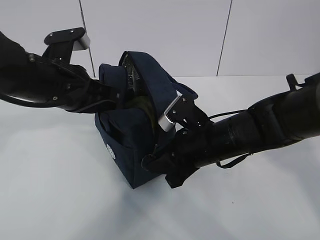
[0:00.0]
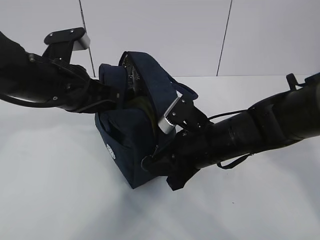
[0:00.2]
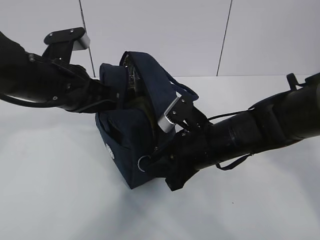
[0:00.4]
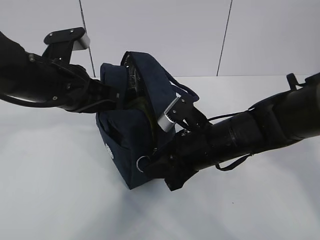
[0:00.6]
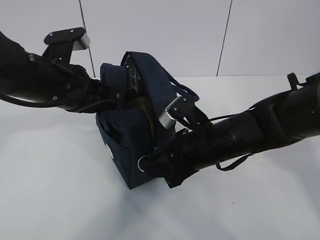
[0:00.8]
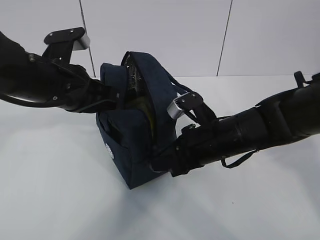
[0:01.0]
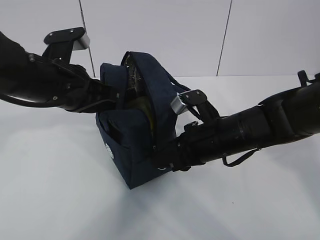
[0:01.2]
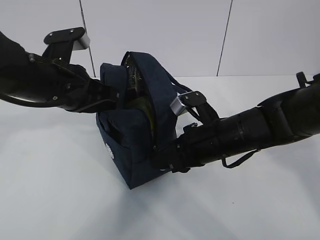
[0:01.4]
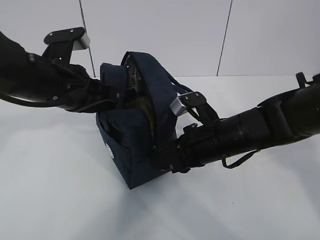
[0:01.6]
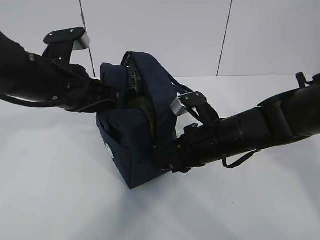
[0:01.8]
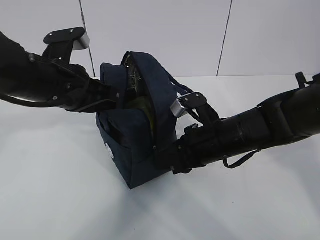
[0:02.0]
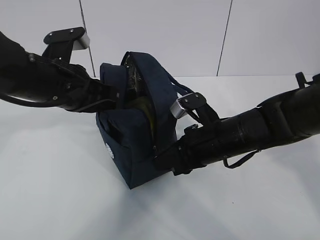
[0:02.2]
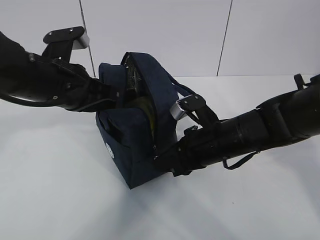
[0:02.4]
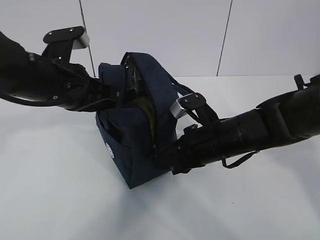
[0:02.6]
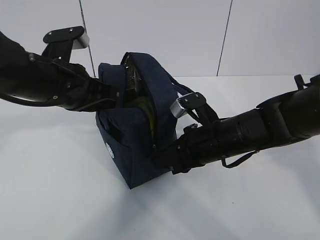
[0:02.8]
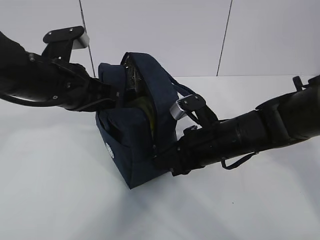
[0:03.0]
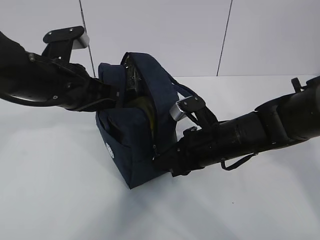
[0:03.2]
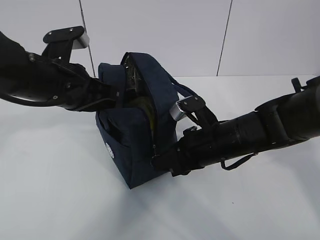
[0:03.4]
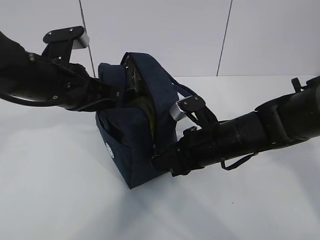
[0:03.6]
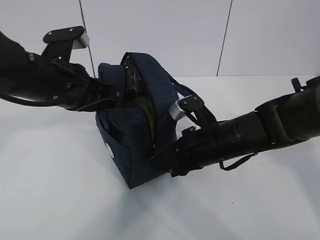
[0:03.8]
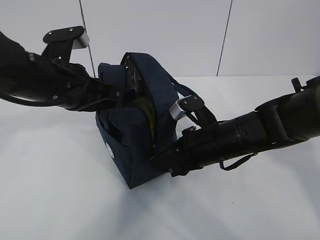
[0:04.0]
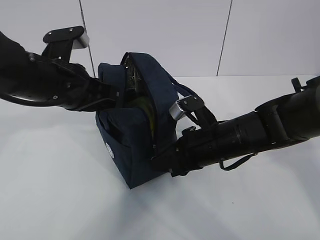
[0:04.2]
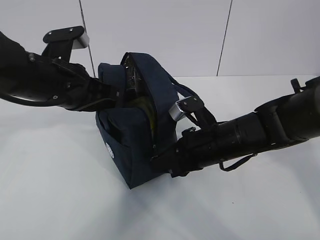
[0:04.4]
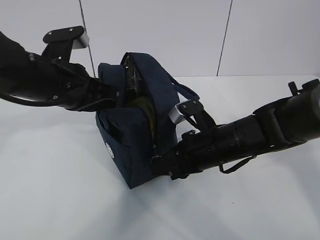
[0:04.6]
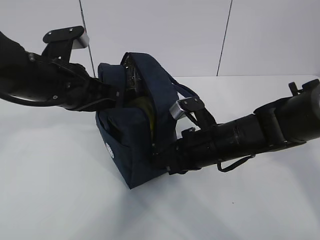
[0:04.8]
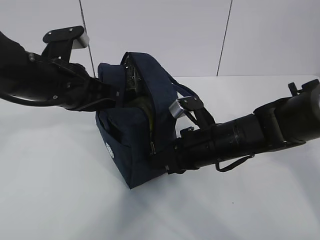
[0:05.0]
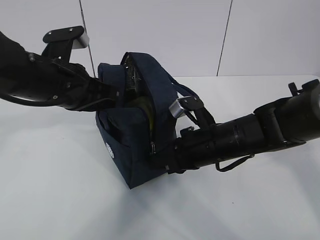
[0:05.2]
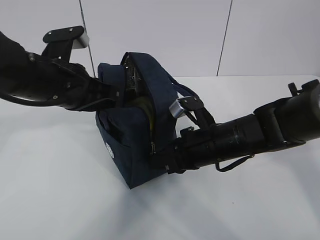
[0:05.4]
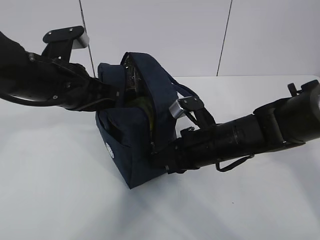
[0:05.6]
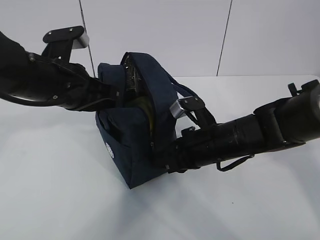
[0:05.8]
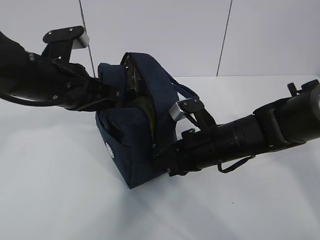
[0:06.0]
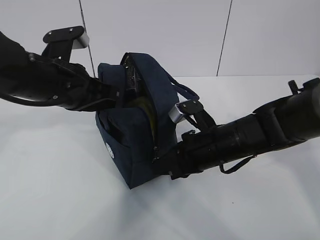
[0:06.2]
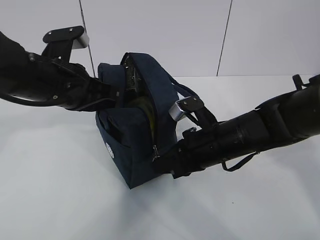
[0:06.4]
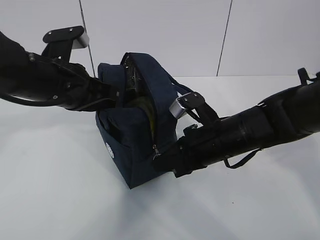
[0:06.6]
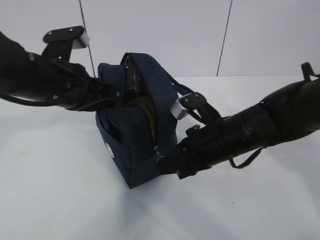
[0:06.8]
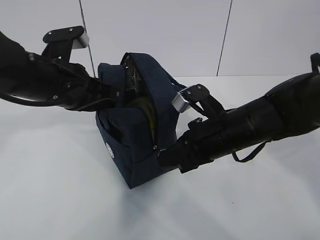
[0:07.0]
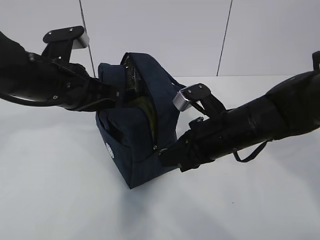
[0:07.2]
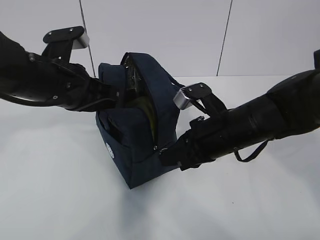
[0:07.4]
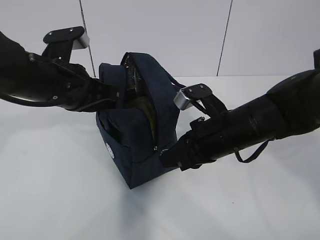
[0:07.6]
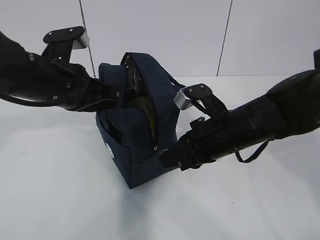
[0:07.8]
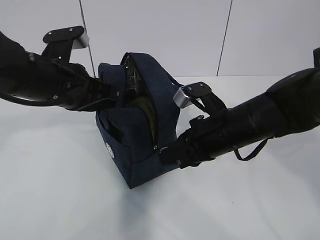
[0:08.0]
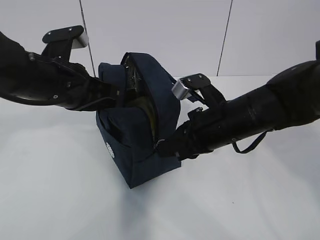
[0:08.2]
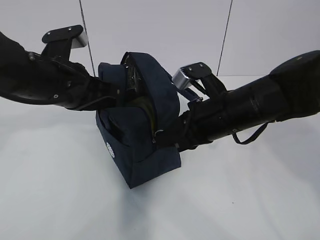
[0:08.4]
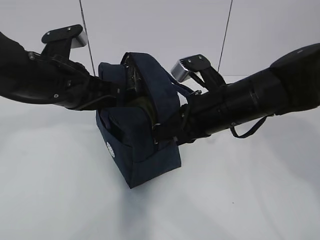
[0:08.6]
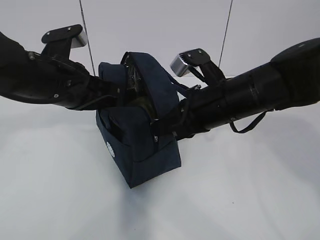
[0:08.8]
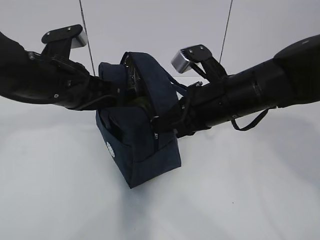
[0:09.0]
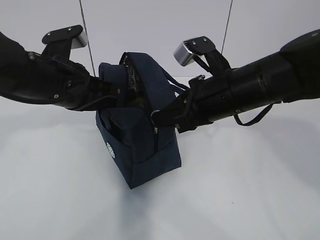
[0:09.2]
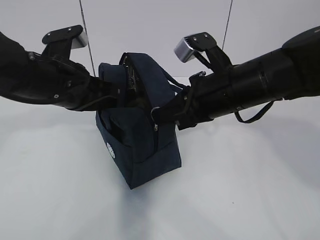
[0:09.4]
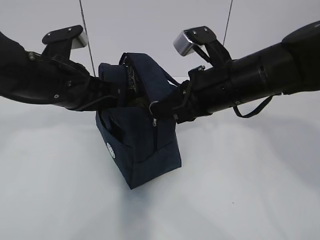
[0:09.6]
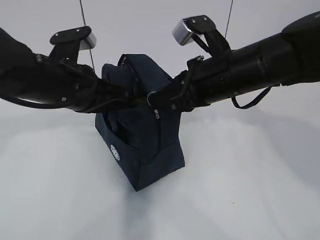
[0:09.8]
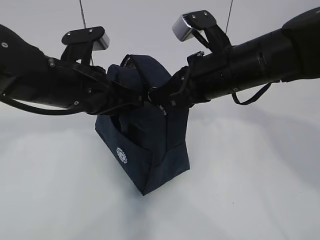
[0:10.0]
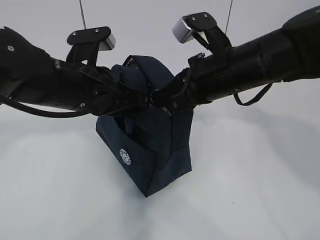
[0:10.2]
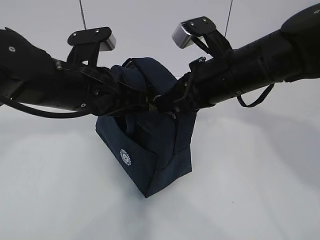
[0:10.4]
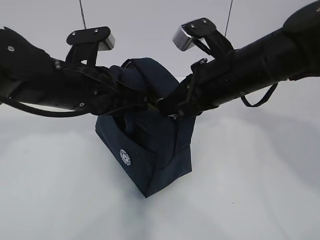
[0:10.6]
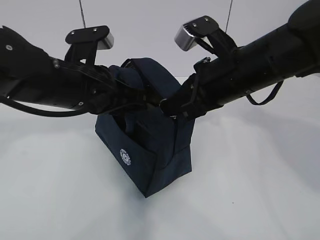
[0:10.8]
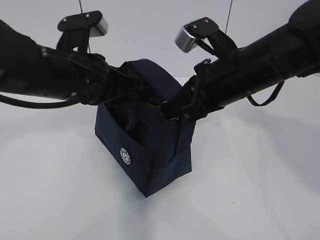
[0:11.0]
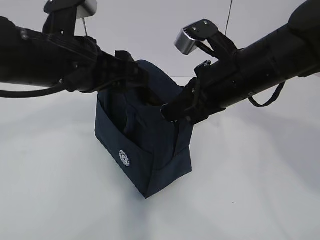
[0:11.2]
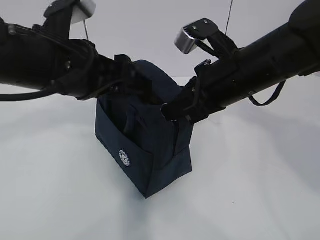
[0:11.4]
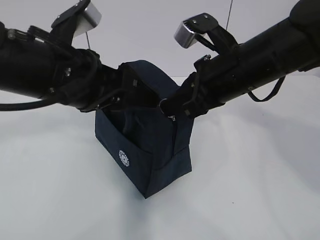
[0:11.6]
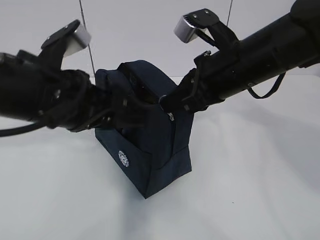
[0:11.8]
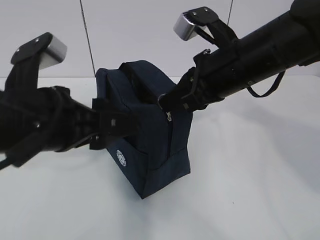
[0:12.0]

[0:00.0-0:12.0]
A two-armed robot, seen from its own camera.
Step, 0:03.0 to 0:09.2: Pull the zipper with your right hand.
0:00.0 to 0:01.6: There are only small adjustments of the grippers.
0:01.6 to 0:04.4: Neither gripper changes place.
0:04.4 to 0:06.0: Neither gripper changes place.
0:06.0 to 0:07.6: The grippers stay close to where they were, moving slightly.
0:07.6 to 0:09.0: The right gripper travels upward by approximately 5 cm.
0:09.0 to 0:10.4: The grippers move only a little.
0:10.4 to 0:12.0: The left gripper moves backward, about 10 cm, and opens its fingers.

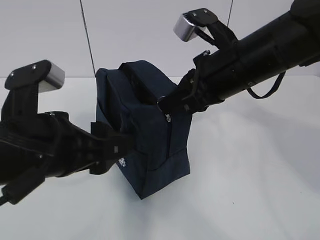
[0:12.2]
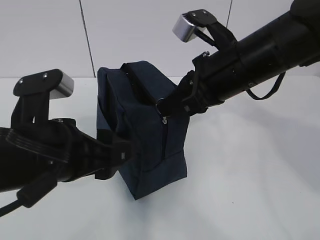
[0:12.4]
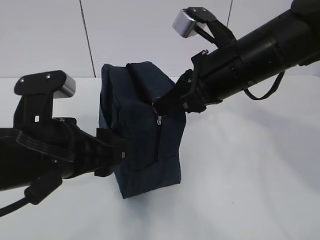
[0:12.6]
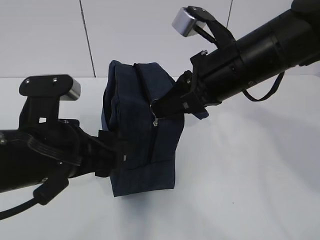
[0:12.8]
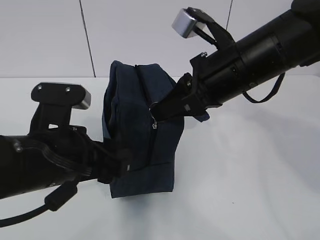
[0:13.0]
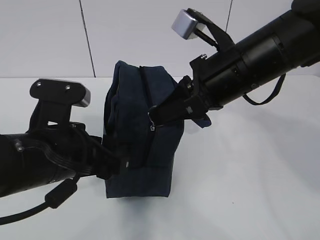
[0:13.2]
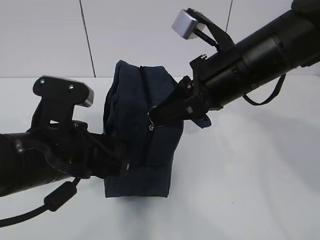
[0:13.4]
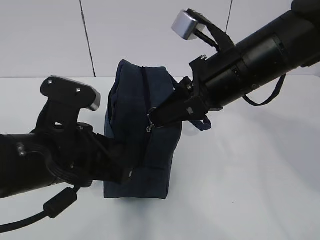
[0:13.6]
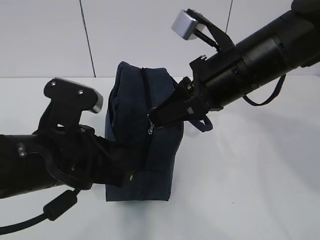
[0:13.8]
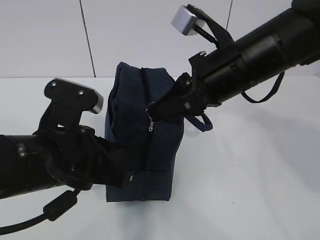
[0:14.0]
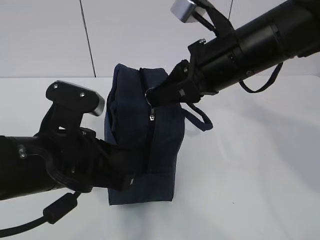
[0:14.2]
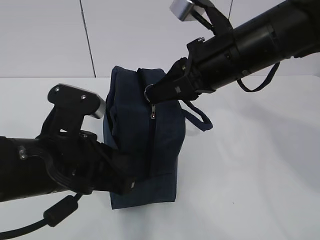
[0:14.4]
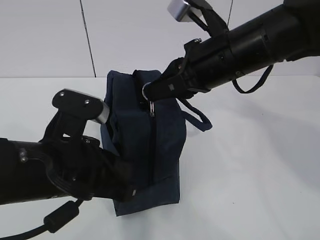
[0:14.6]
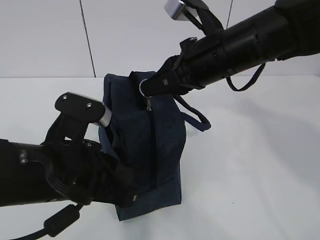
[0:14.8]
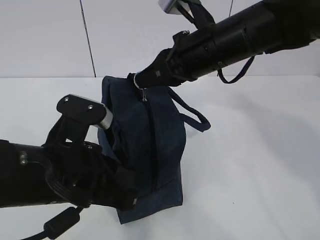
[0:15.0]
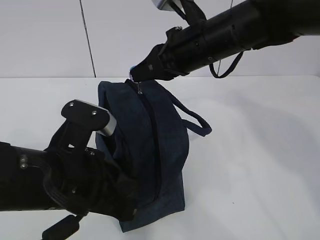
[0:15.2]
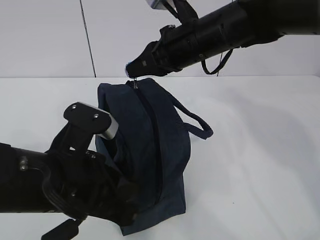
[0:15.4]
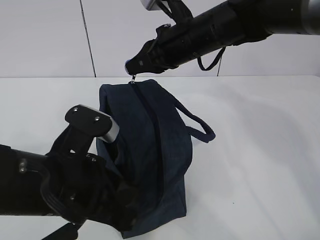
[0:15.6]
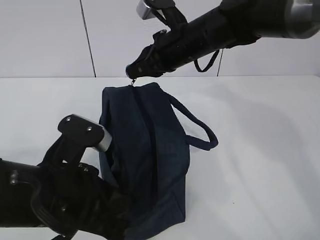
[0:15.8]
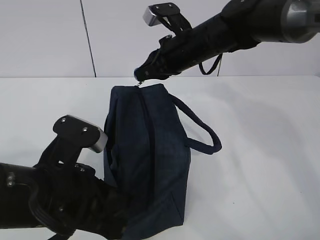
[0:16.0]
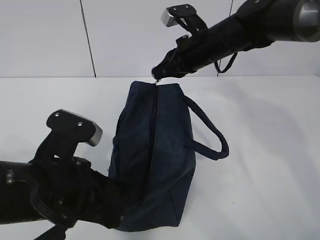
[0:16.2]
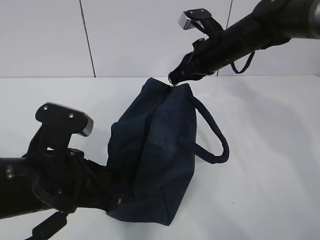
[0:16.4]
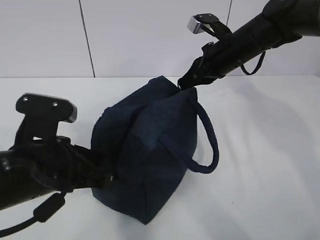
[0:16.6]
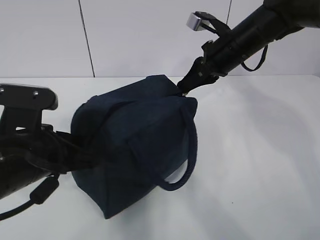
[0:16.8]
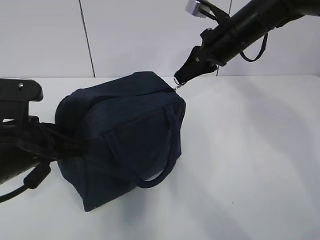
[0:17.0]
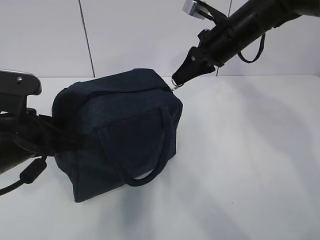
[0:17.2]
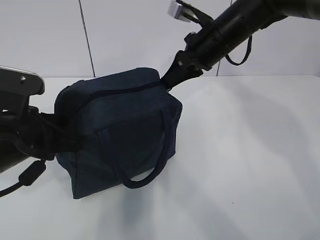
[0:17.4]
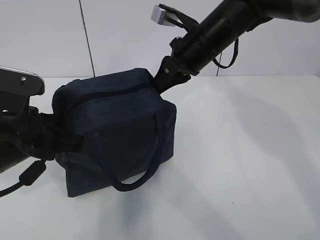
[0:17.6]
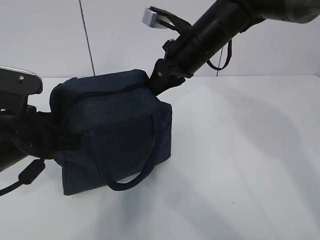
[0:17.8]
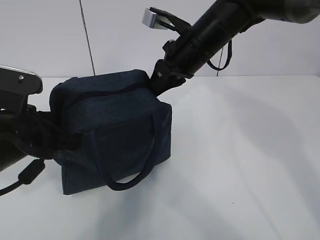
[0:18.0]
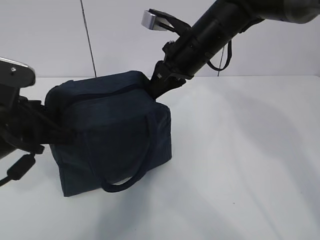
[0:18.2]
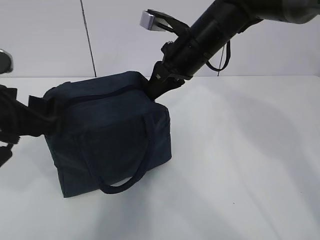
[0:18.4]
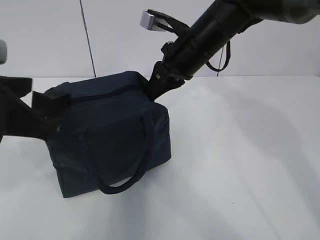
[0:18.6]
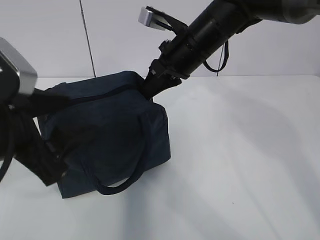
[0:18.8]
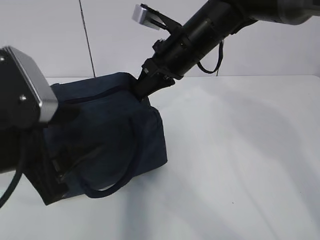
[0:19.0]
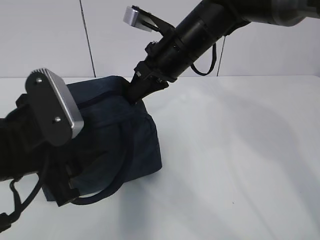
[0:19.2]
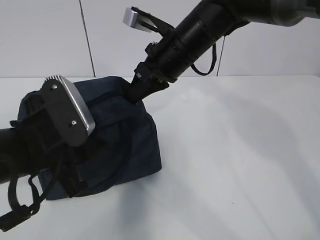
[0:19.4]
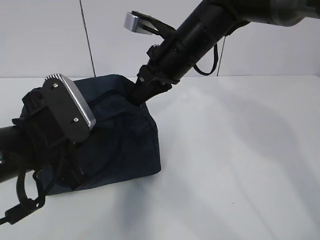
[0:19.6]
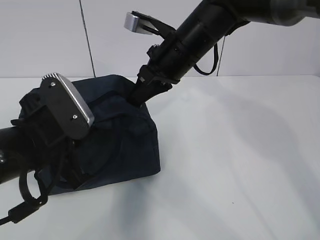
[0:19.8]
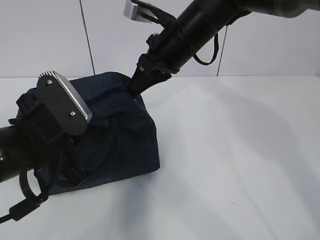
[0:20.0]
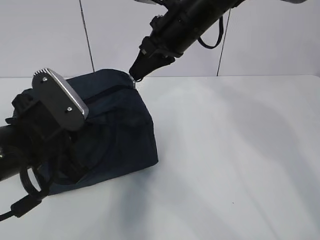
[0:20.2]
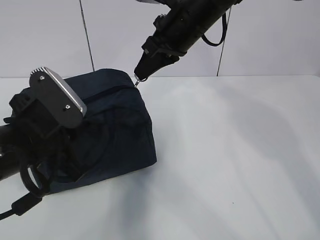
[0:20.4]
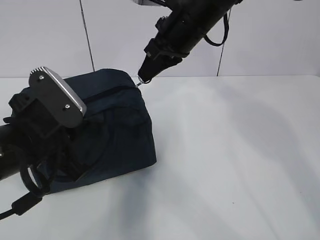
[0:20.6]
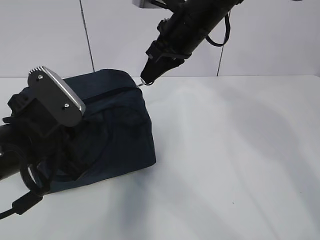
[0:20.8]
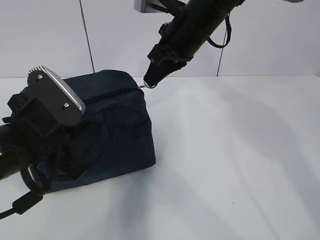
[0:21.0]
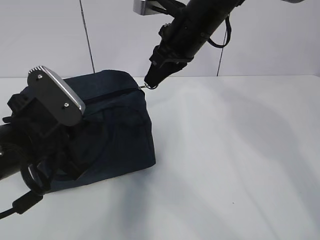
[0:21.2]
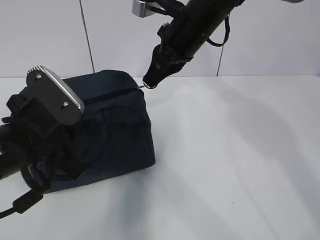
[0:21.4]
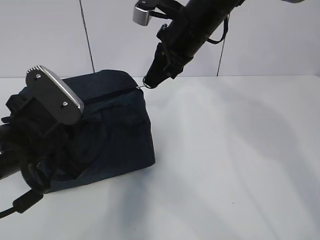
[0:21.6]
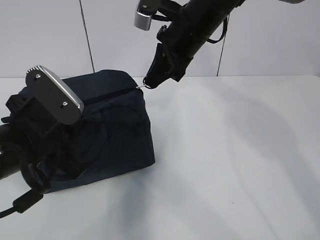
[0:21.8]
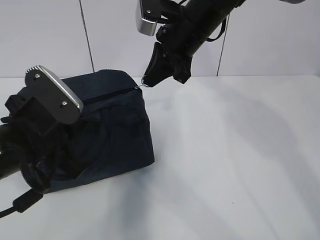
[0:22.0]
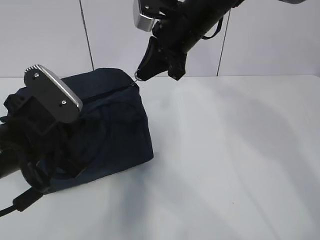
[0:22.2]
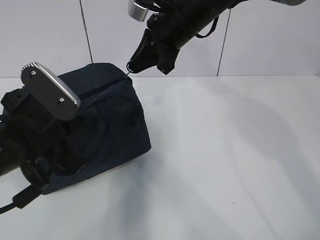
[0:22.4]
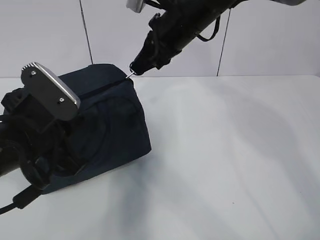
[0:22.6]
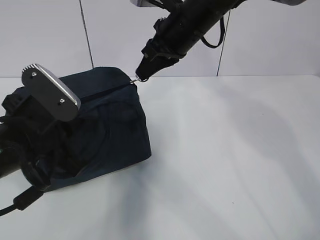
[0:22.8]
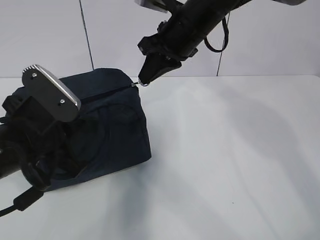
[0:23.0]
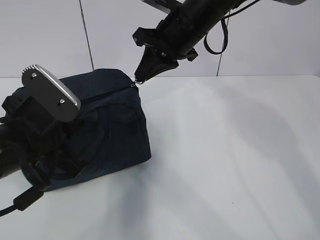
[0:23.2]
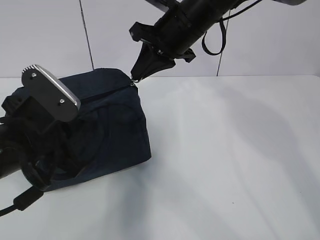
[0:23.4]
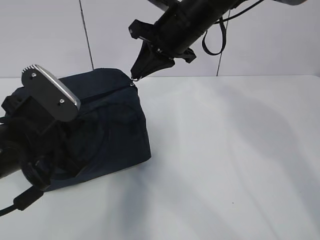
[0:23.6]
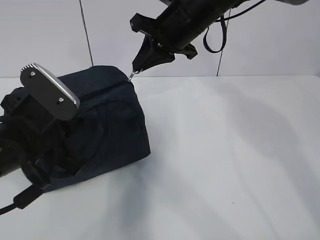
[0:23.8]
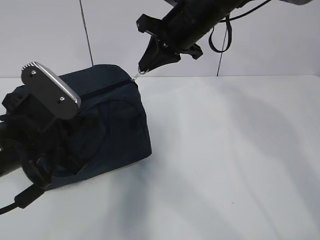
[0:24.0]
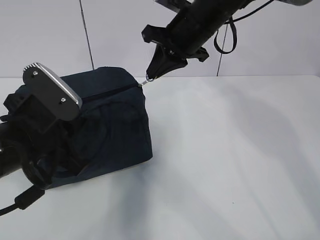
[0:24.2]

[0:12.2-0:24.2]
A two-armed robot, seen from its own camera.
Step, 0:12.2 to 0:16.0: Grab the lunch bag with your left hand.
0:12.2 to 0:13.8: The left gripper closes its fingers.
0:13.8 to 0:15.2: The right gripper shifts about 10 cm forward.
0:15.2 to 0:16.6: The right gripper heads to the right, forward and downward, covering roughly 10 cm.
0:16.6 to 0:18.2: The left gripper ends up roughly 5 cm from where it was, and opens, while the right gripper shifts some 10 cm to the left.
0:18.2 to 0:19.8: The left gripper closes its fingers.
0:19.8 to 0:21.2: The grippers stay close to where they were, moving slightly.
